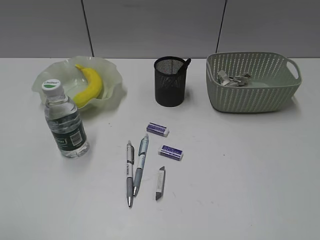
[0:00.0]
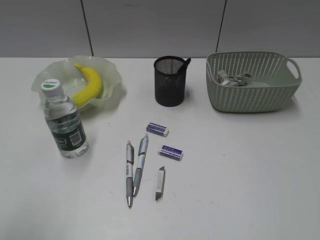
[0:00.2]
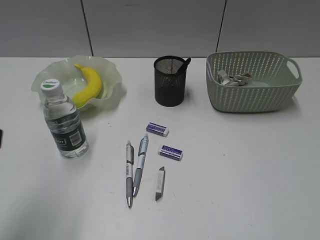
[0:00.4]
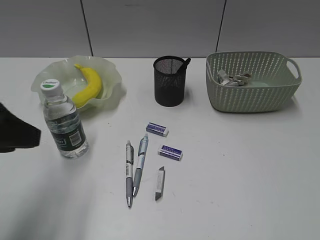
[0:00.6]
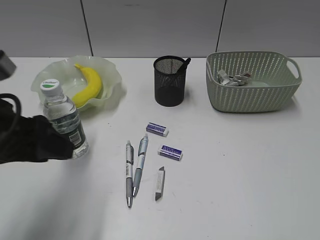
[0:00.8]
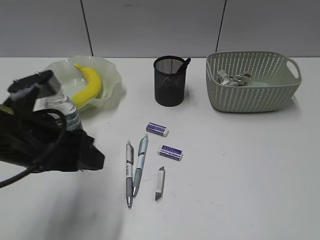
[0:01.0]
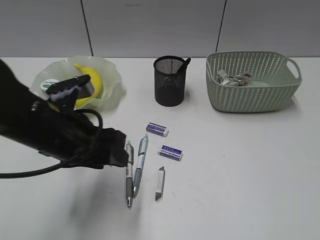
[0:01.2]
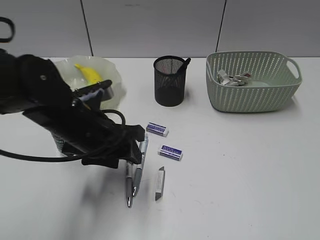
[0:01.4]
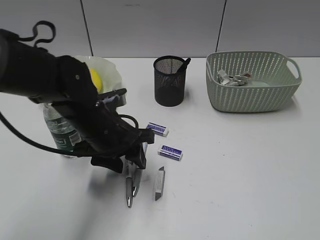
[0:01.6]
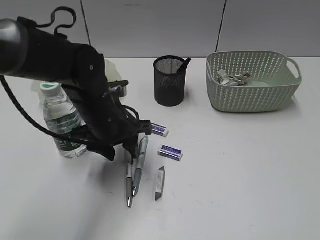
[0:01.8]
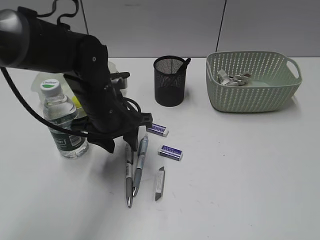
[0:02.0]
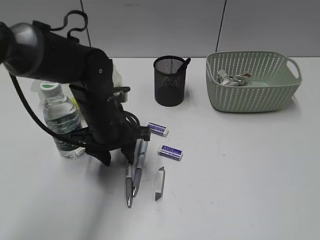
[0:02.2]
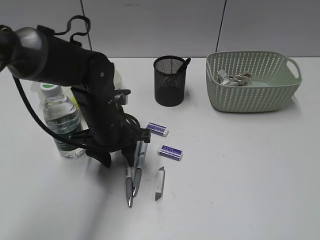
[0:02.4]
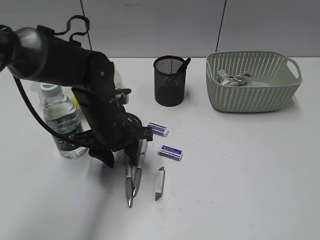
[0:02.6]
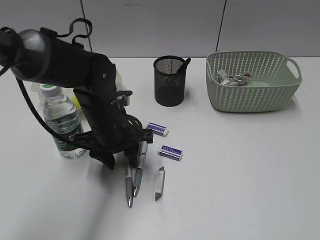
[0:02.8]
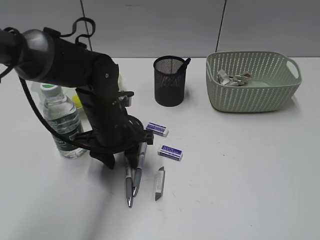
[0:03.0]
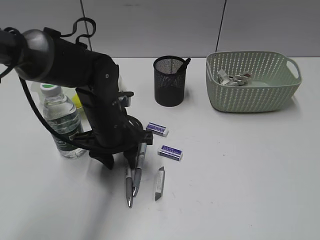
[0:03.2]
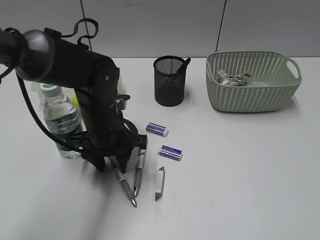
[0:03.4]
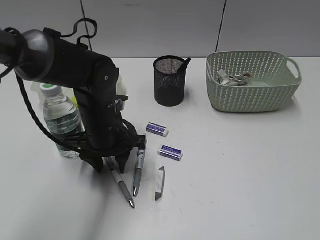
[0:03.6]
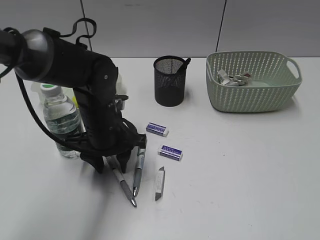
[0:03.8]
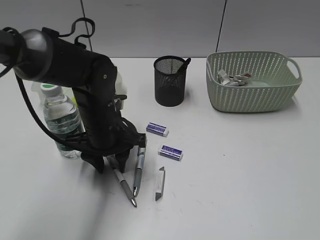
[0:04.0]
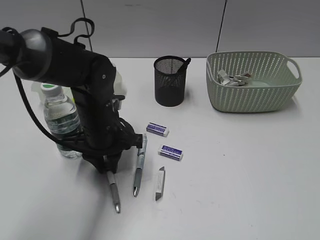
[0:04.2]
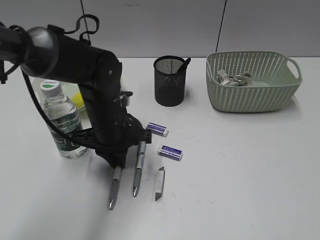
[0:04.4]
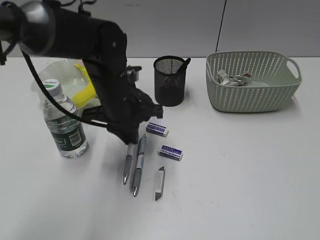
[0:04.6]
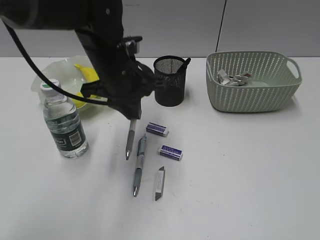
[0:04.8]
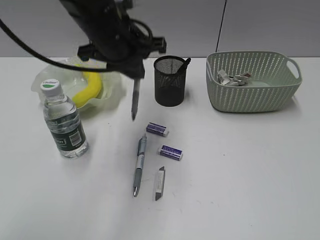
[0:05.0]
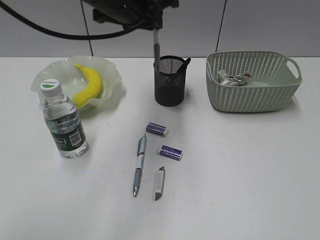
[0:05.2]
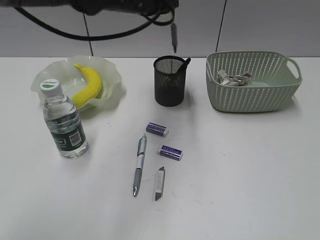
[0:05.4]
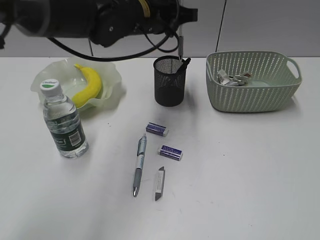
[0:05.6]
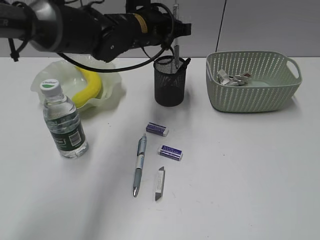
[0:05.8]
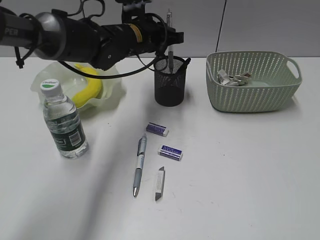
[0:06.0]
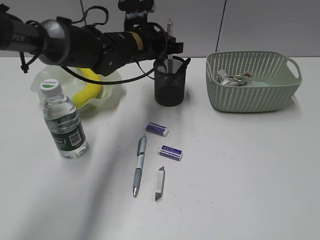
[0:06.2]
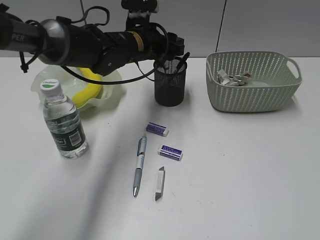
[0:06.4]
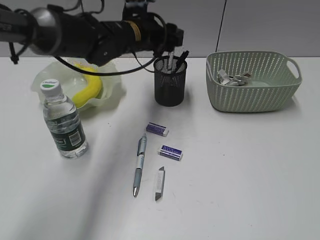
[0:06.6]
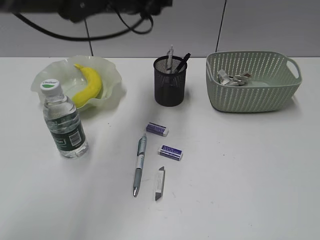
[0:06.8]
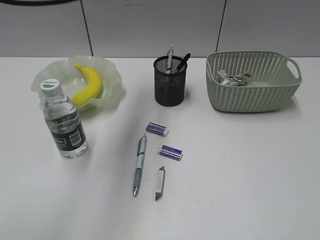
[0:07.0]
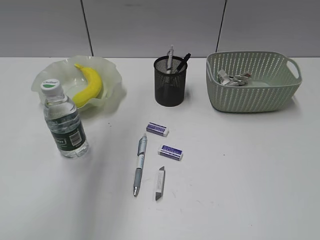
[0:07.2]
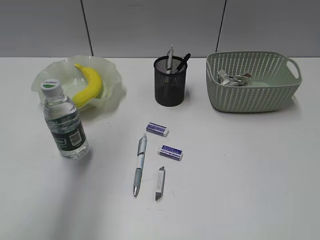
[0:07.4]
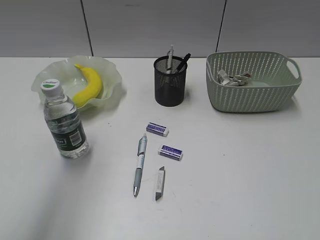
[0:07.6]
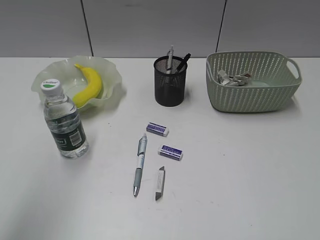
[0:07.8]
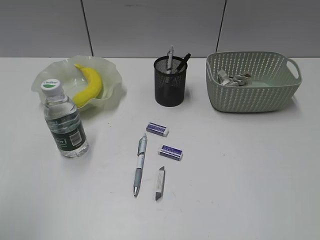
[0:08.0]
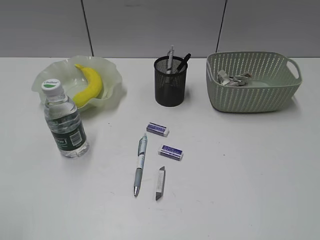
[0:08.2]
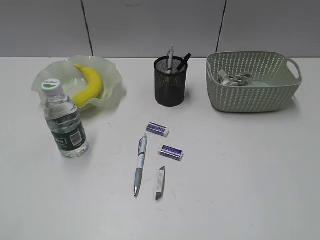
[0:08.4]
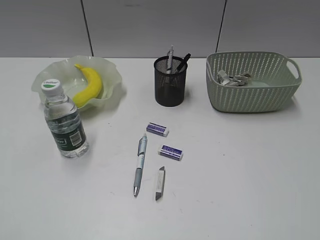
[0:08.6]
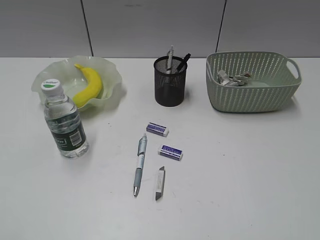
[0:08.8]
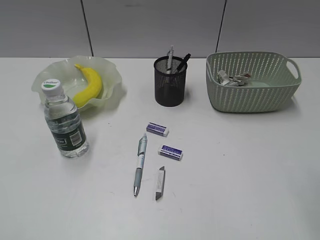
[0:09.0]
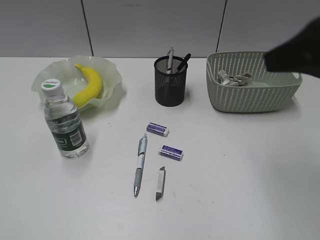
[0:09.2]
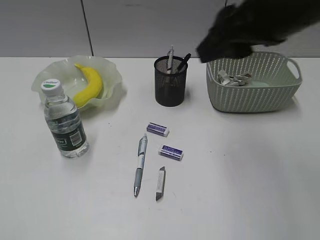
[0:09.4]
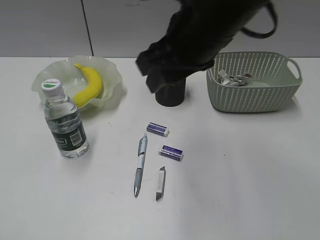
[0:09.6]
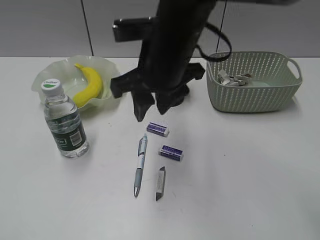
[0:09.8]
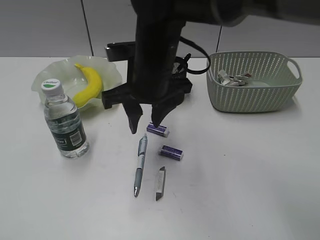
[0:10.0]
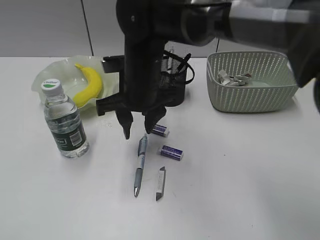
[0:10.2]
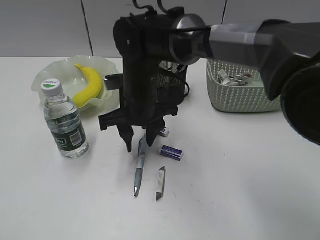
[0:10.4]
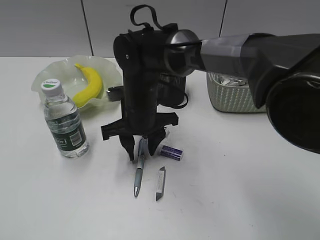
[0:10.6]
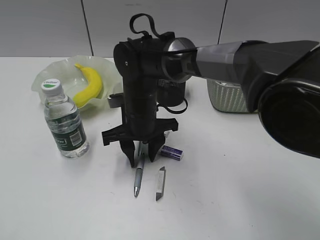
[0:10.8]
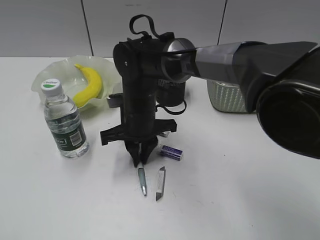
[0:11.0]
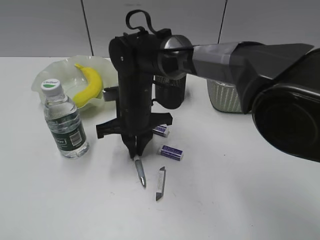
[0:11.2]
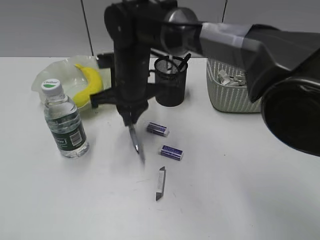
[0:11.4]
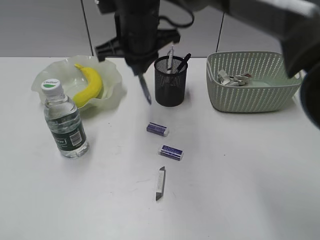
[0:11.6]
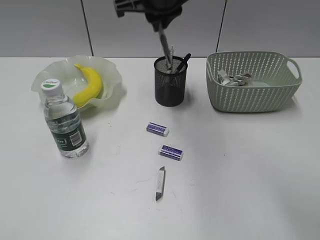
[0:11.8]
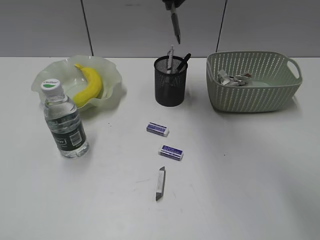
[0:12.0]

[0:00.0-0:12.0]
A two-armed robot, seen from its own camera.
Step, 0:00.0 to 0:04.4: Grasp the gray pen with left gripper.
Step, 0:04.6 to 0:06.6: Place the gray pen in pen holder with left gripper.
Step, 0:06.8 to 0:11.0: Grasp the blue pen with right gripper.
0:00.0 to 0:01.6: The left gripper goes about 35 cm forward, to the right and downward.
0:01.6 to 0:03.0: The grippers move only a little.
0:03.0 to 0:04.4: The left gripper closes.
0:04.4 to 0:06.0: The left gripper moves forward and upward, approximately 15 cm.
0:06.0 to 0:07.6: The left gripper moves backward, upward and to the left, approximately 40 cm, and opens its fingers.
0:07.6 to 0:09.0: The left gripper moves backward, downward and to the left, some 25 cm.
0:09.0 to 0:10.4: The right gripper goes approximately 40 cm to the left, forward and downward.
0:10.4 to 0:12.0: The right gripper travels upward by about 20 cm, and closes its fingers.

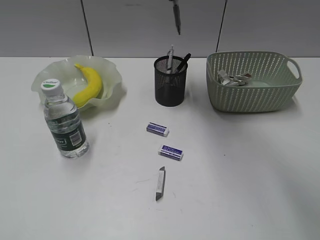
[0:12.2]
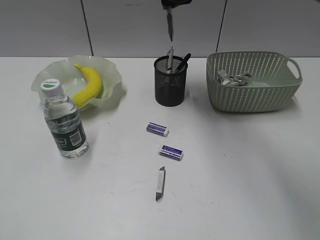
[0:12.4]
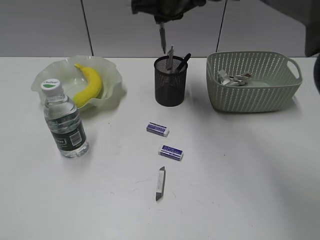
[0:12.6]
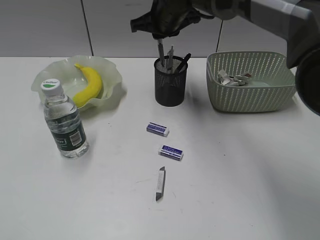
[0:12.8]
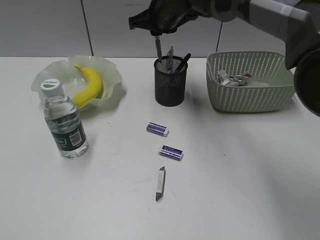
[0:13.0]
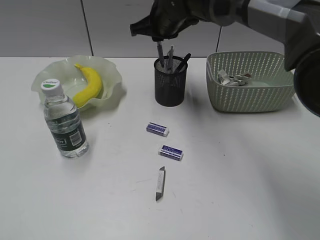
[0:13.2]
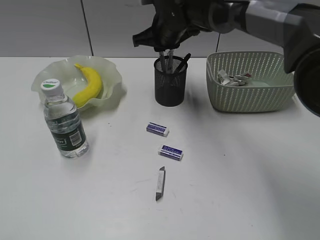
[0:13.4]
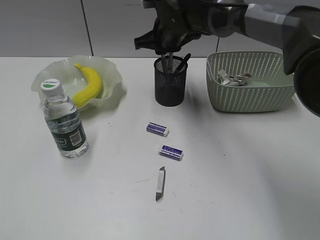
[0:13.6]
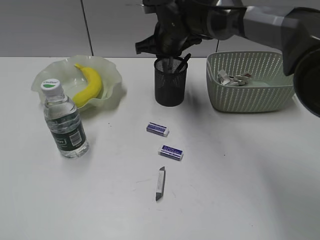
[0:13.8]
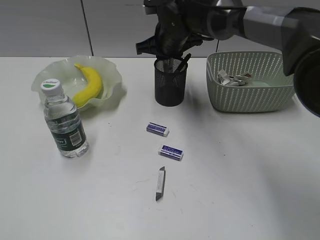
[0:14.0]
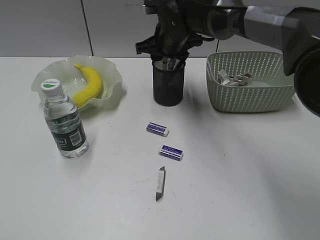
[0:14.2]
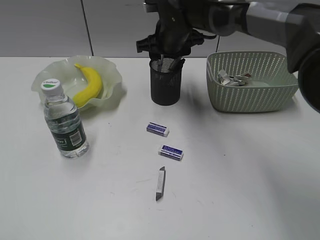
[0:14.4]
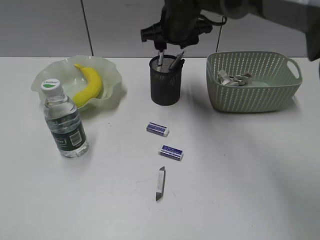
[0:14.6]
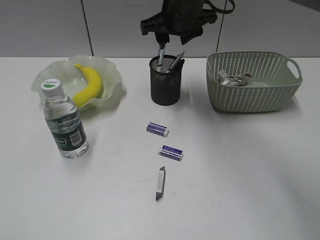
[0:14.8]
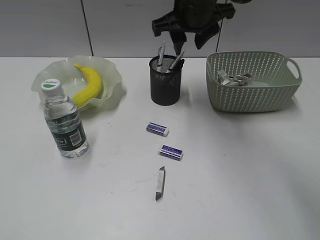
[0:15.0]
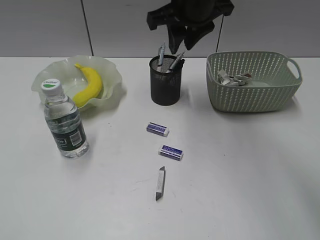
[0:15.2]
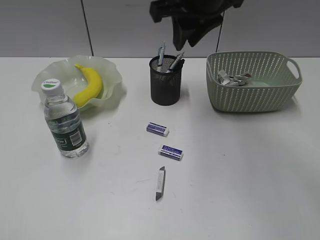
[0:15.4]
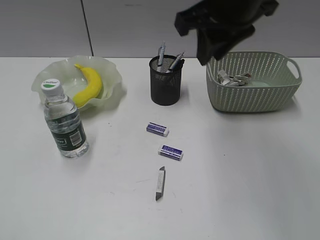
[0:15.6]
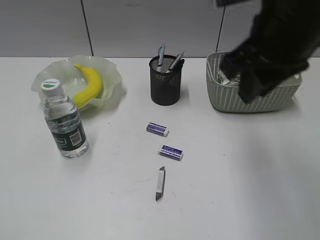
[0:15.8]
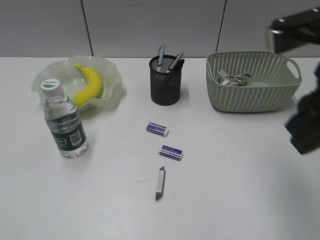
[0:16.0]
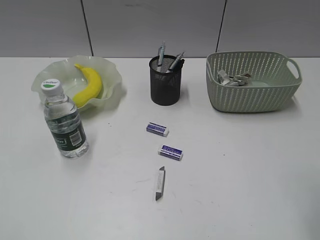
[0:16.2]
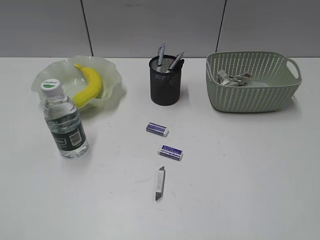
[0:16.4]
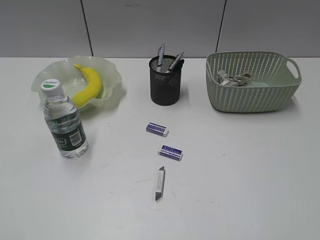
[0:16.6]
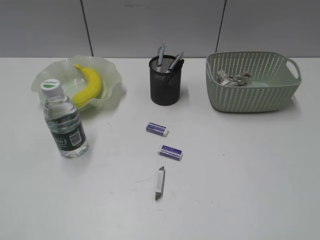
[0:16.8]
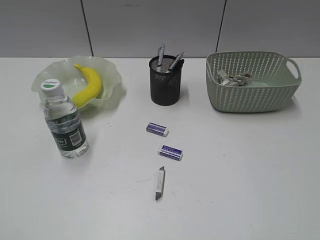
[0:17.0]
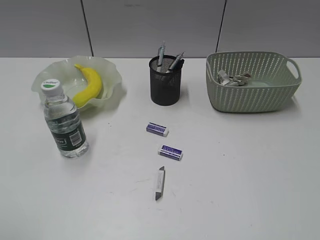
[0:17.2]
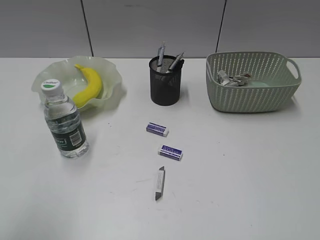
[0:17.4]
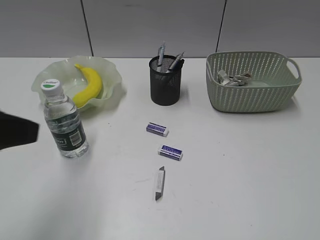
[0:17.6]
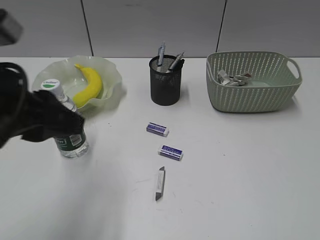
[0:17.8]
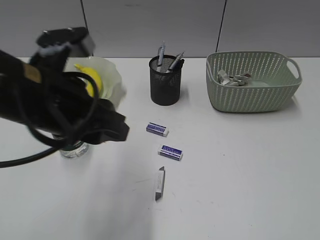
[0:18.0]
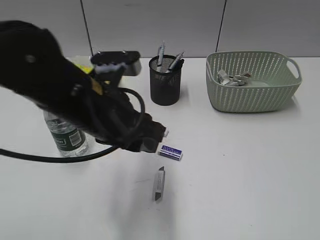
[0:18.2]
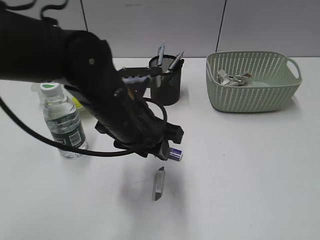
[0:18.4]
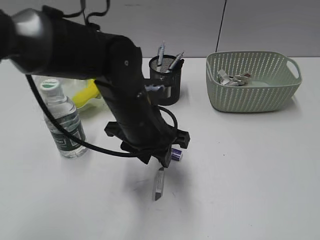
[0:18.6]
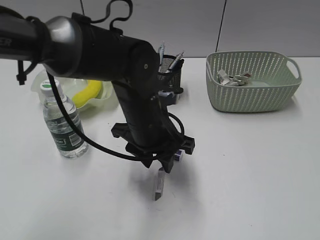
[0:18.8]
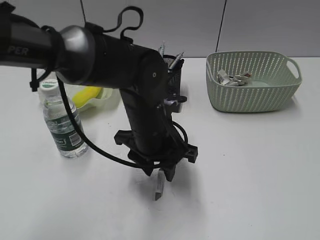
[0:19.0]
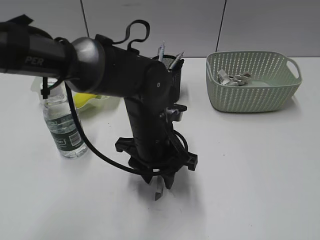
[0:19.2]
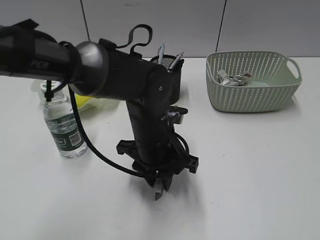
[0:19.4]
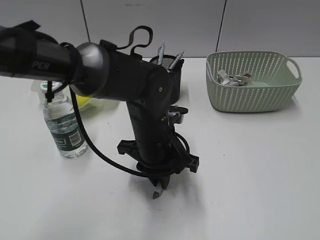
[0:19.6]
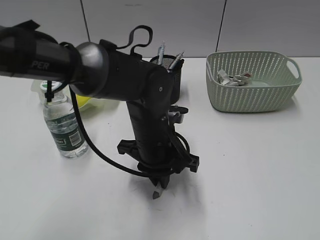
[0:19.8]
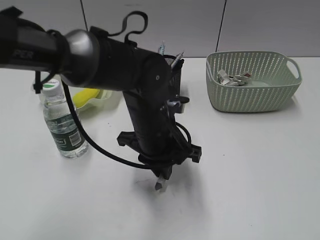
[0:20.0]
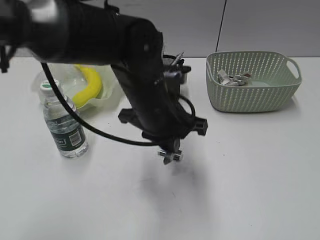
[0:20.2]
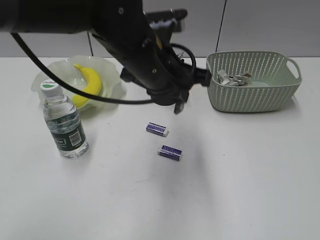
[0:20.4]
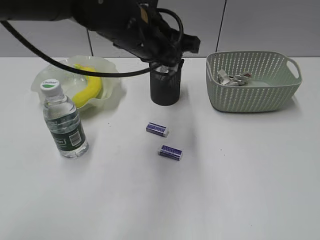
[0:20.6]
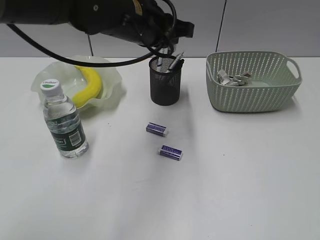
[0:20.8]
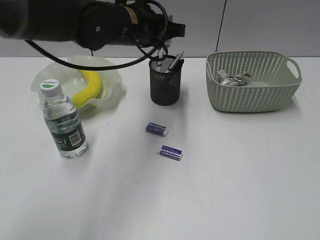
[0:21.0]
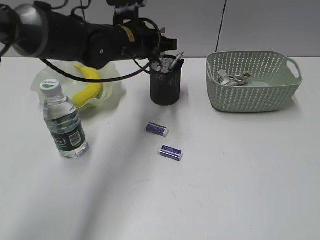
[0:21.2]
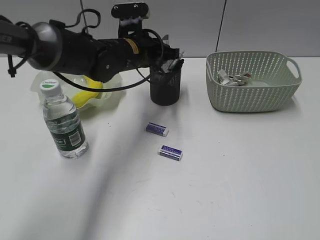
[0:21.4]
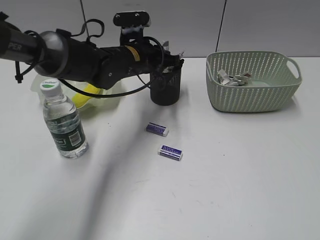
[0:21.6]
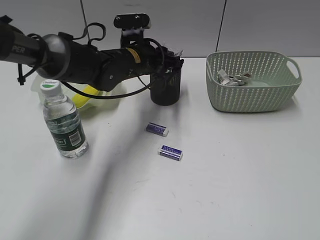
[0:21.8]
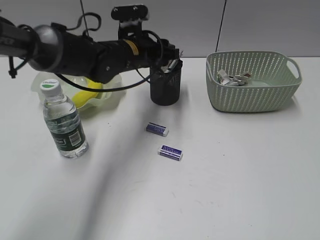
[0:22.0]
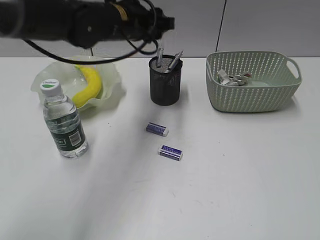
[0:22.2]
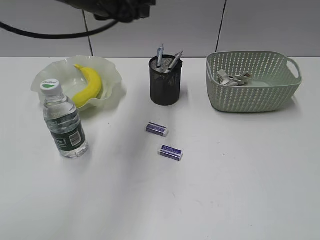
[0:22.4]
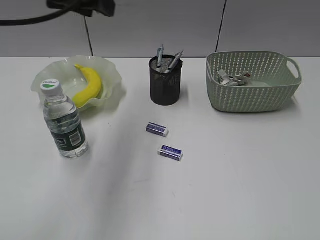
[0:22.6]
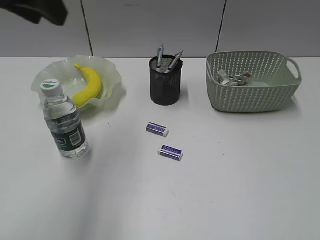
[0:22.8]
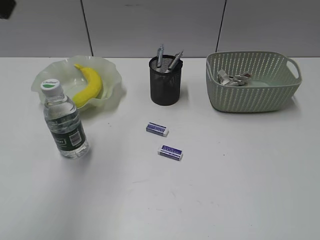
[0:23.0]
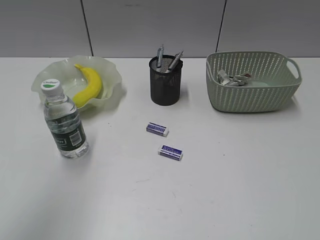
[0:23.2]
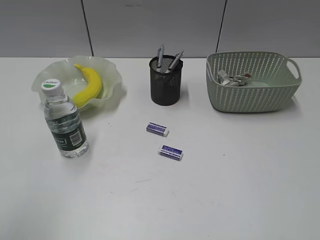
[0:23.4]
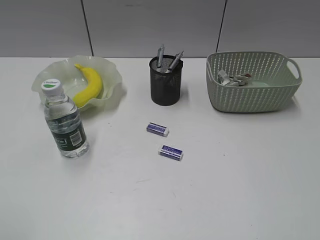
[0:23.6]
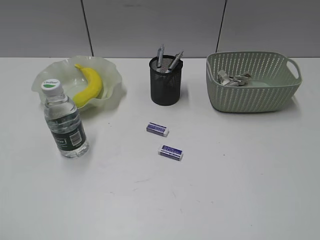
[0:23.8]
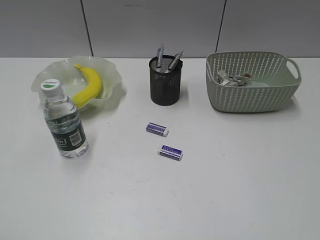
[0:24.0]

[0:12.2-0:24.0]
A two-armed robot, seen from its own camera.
Step, 0:12.2 to 0:14.2: Place the blue pen in pen holder with right gripper.
Step, 0:14.4 to 0:19.6: Grasp the eraser with left gripper.
Step, 0:19.8 to 0:21.8: Place the eraser in pen holder with left gripper.
0:12.2 to 0:13.6: The right gripper shifts some 15 cm downward.
0:13.6 to 0:15.2: The right gripper shifts approximately 15 cm upward and backward, and opens.
0:15.2 to 0:16.6: The right gripper heads backward and to the right, covering approximately 40 cm.
0:16.6 to 0:18.2: The left gripper goes some 35 cm to the right and forward.
0:18.2 to 0:19.6: The left gripper moves downward and to the right, some 10 cm, and closes.
0:19.6 to 0:21.0: The left gripper travels forward and upward by about 15 cm.
0:21.0 to 0:22.6: The left gripper moves upward, backward and to the left, some 20 cm, and opens.
0:22.6 to 0:24.0: The left gripper heads backward and to the left, covering some 35 cm; the right gripper changes place by roughly 5 cm.
